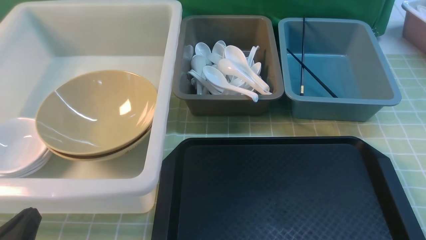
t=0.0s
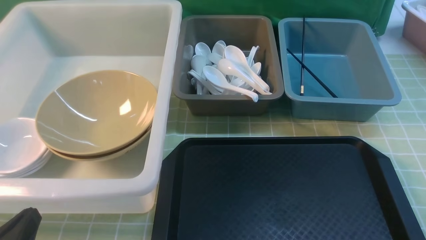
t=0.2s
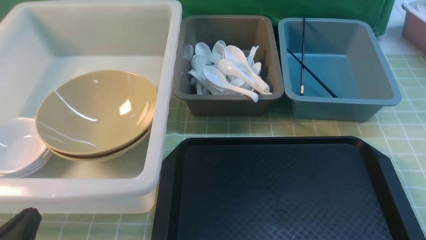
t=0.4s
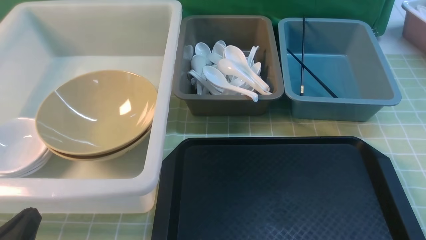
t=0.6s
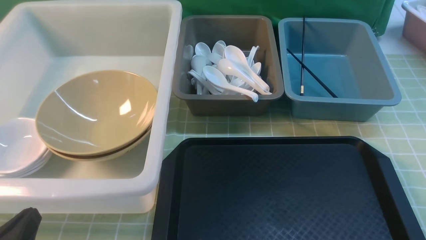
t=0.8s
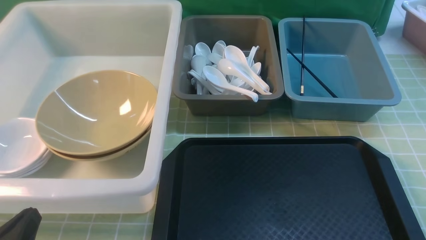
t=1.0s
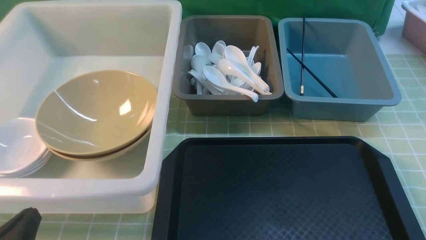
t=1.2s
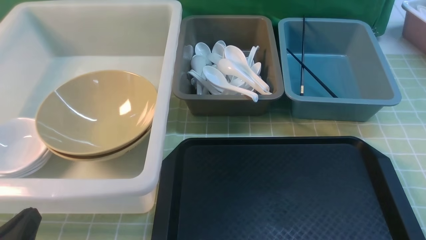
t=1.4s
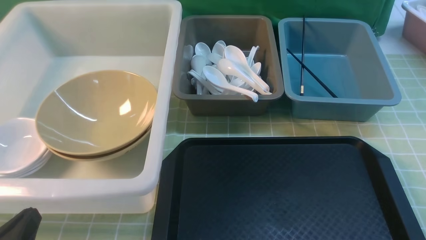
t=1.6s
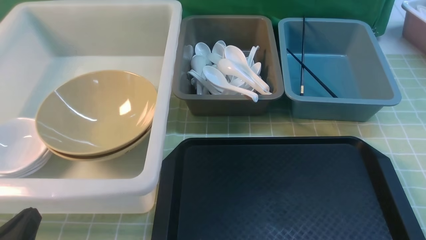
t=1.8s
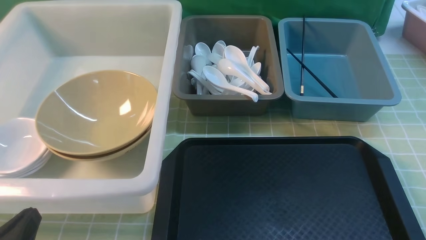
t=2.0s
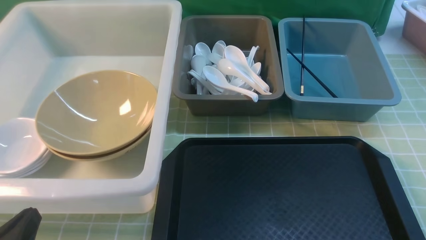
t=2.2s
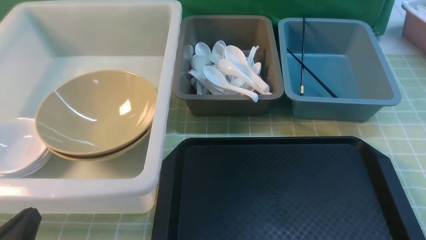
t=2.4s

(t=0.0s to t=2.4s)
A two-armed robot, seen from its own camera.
Task of the whole recording: on green table put chopsticks spoon bowls plates into blue grey white boxes.
t=0.0s - t=2.4s: Both grippers stay about where they are.

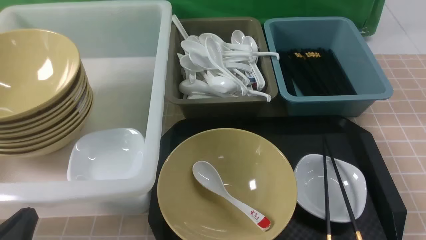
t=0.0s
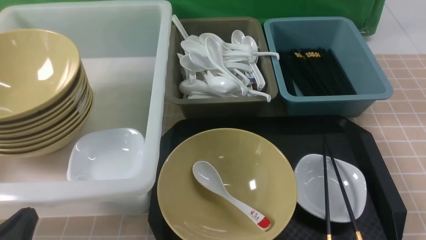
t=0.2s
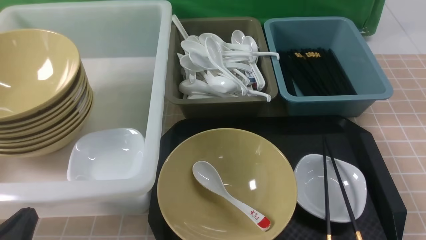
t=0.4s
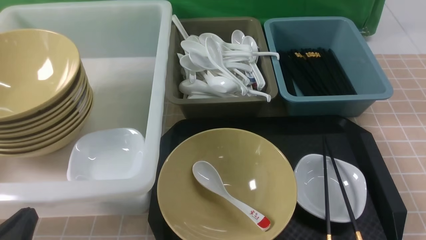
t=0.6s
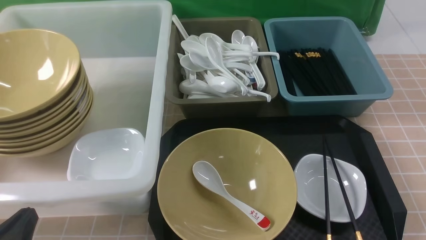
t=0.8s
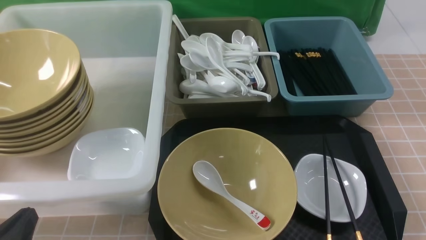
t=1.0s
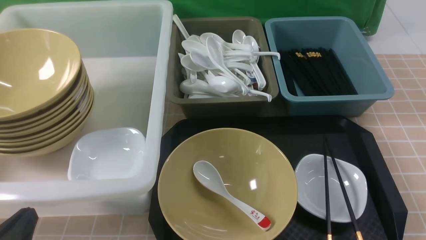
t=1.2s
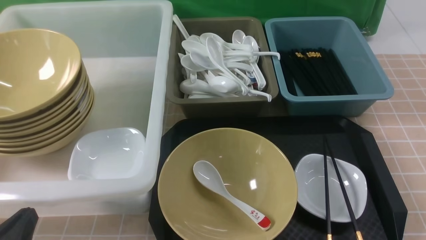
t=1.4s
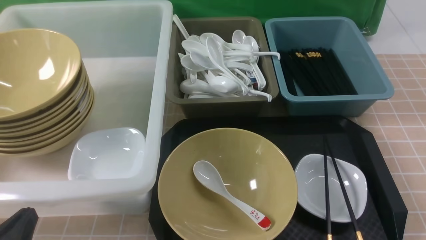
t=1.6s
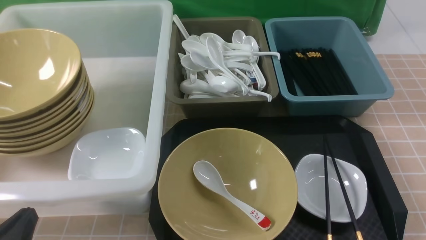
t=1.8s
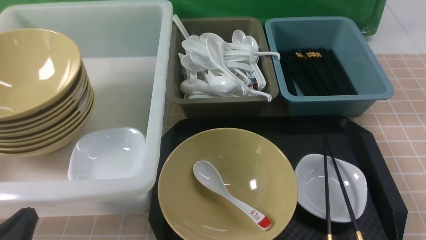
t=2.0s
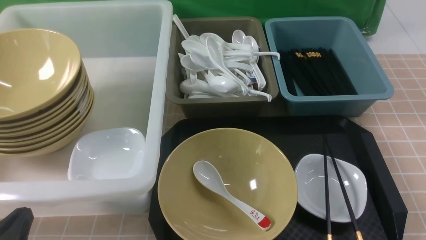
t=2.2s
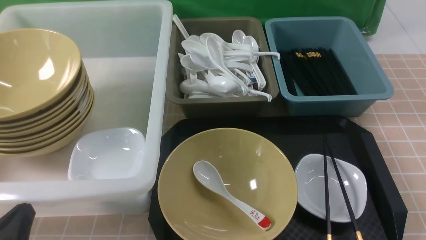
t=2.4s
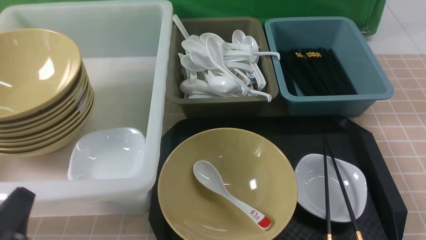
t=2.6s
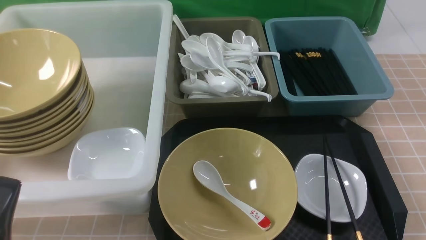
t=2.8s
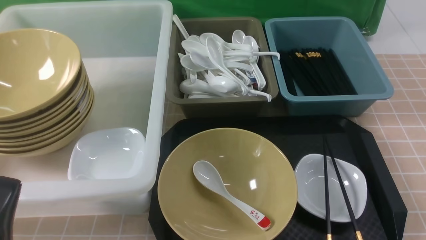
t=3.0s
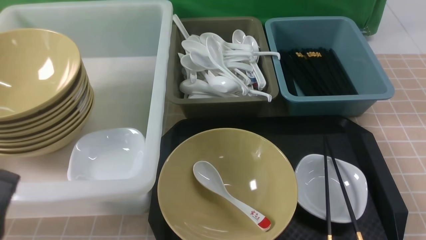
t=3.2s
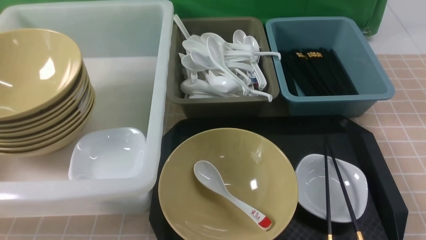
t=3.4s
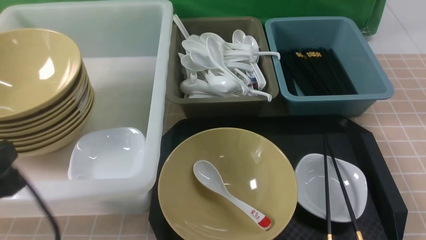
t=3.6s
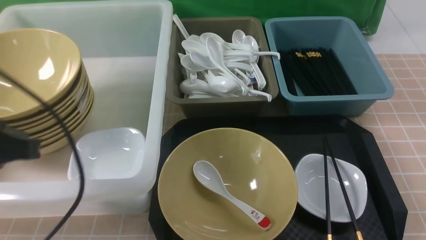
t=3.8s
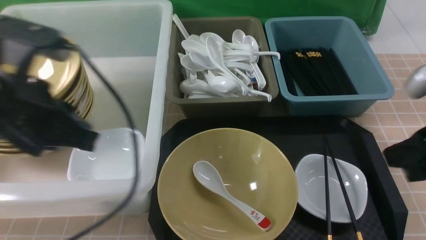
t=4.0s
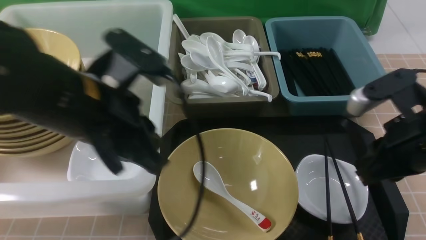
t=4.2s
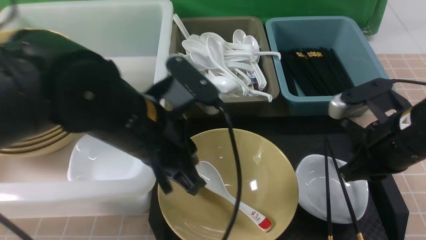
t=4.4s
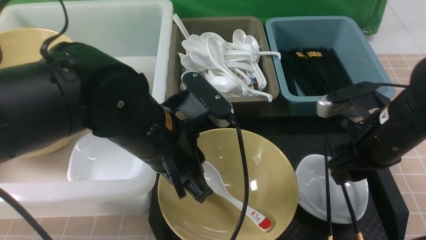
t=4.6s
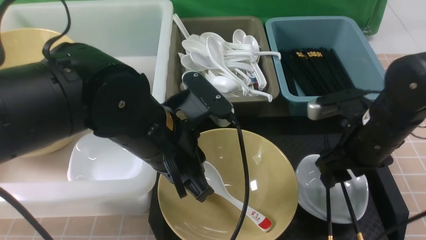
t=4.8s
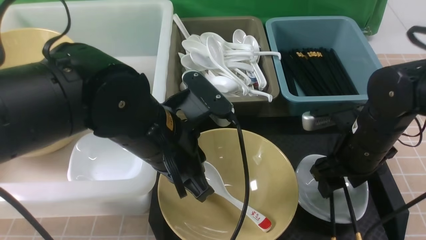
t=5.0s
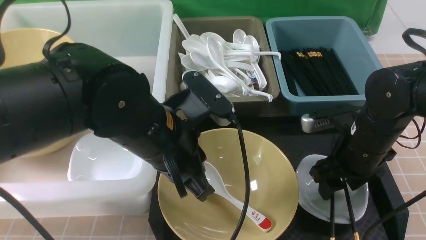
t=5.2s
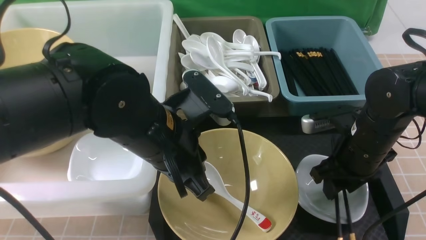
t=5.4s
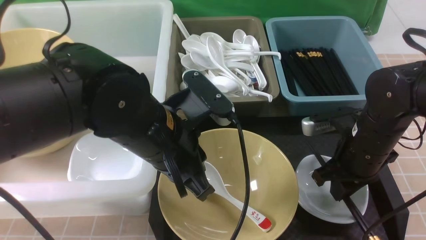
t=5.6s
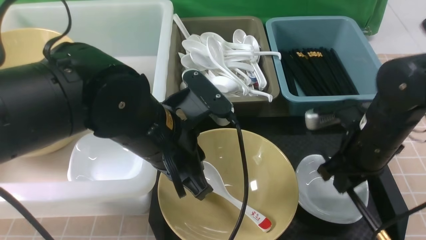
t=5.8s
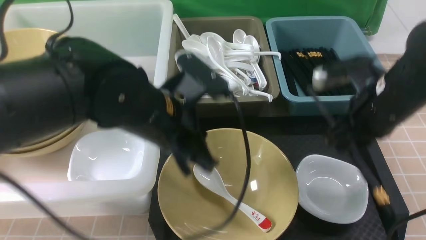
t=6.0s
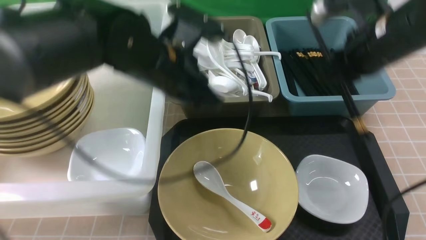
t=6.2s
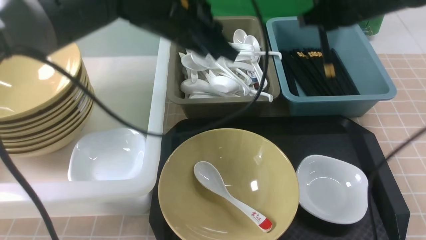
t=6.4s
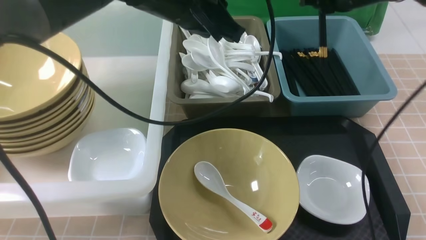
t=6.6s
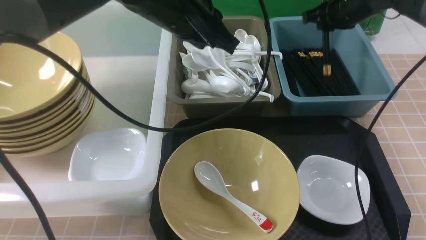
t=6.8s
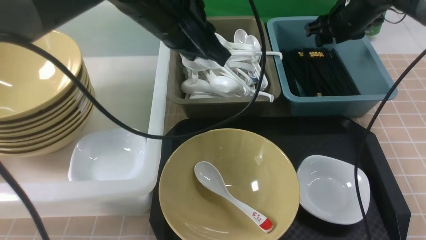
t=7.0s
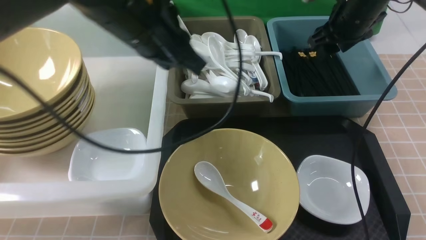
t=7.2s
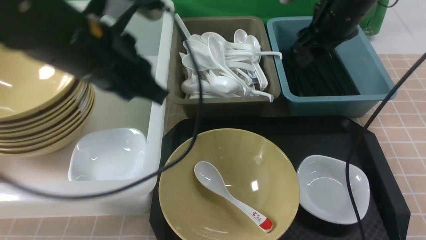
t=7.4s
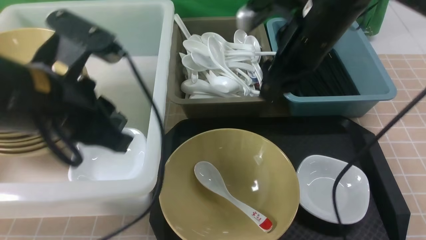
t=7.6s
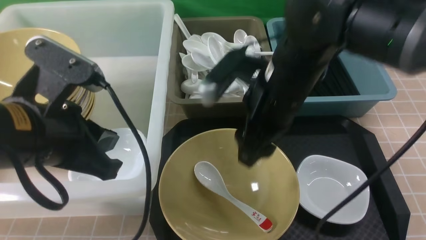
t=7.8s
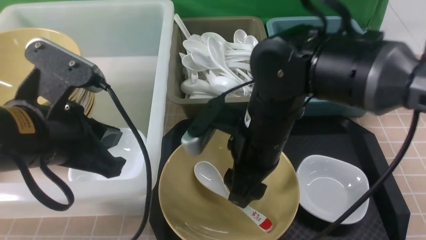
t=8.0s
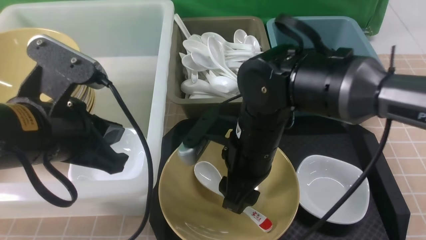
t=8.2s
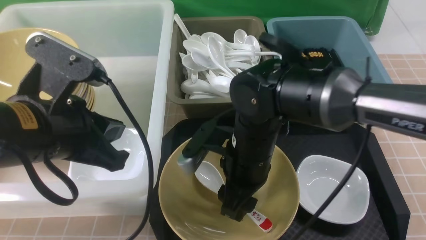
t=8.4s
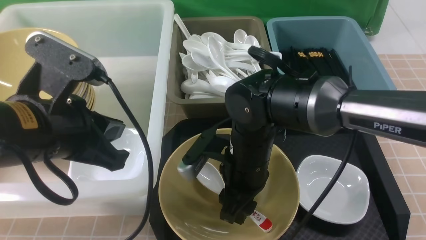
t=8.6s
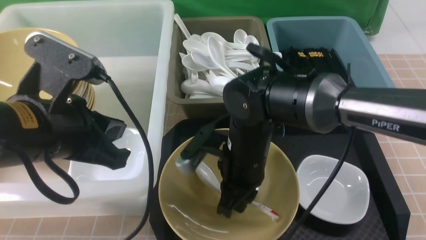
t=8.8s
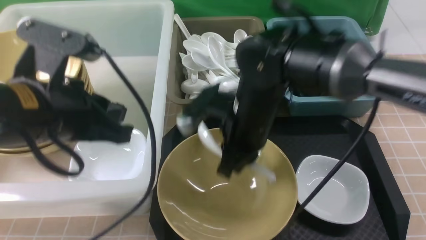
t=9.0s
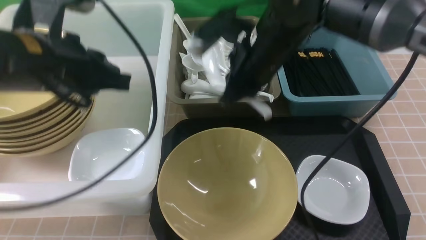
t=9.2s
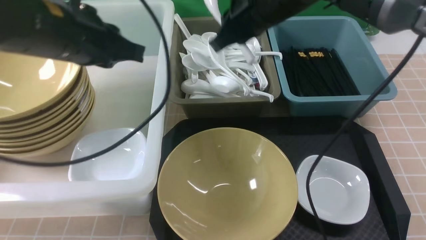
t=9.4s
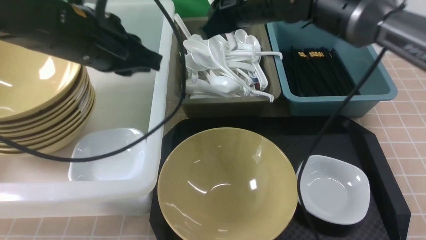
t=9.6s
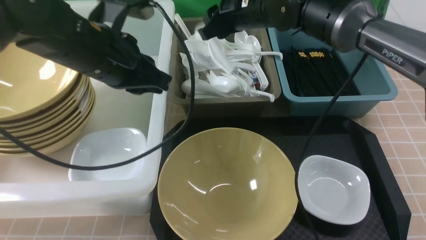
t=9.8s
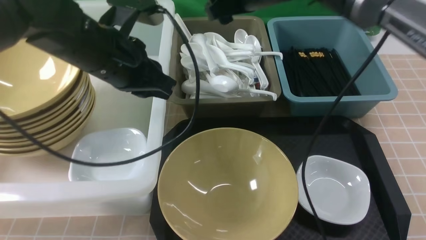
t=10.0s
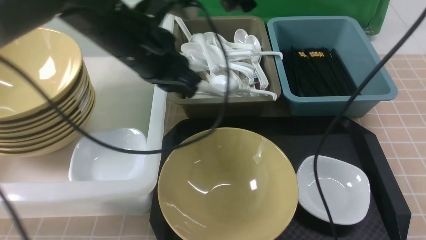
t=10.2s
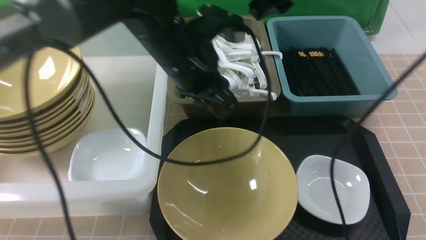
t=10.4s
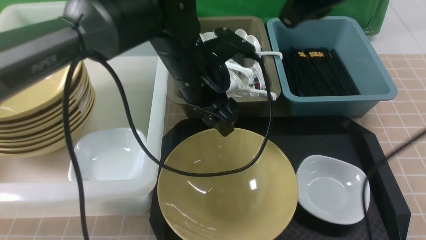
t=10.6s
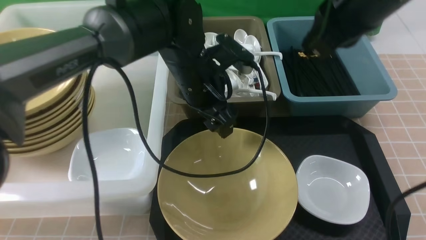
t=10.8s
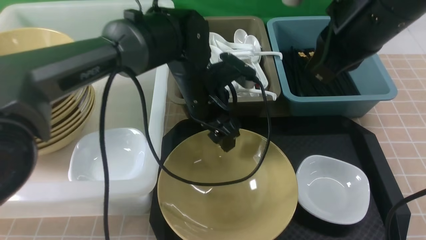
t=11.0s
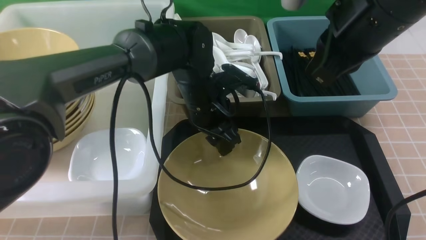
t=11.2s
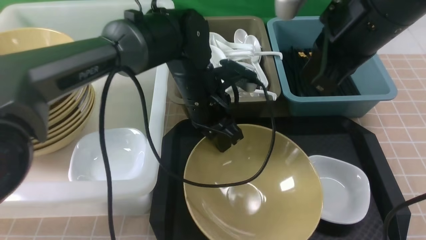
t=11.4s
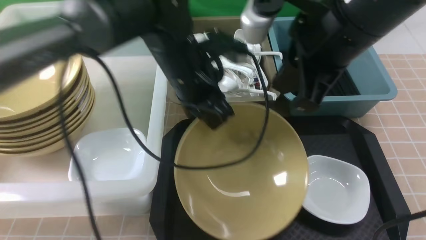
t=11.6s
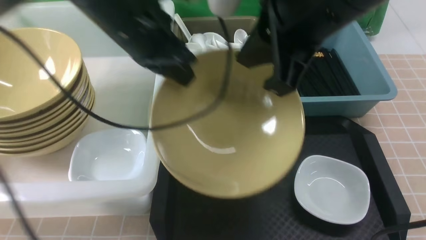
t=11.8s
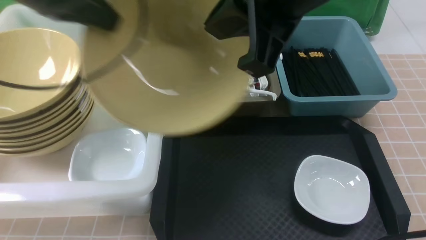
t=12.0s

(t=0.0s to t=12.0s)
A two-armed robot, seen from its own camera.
Task of the whole recording: on brown table put chopsticks spoon bowls plates into blue grey white boxes.
Step, t=0.0s - t=6.0s: use the right arm to grab the chopsticks.
Step, t=6.2s - t=7.0s: use the right arm to put the chopsticks into the small storage box on the right.
Step, t=7.2s - t=8.8s: use the right arm to grab the soup spoon in the middle.
Step, t=9.0s - t=10.0s: use the right arm to put the soup spoon into the small storage box in the middle.
Step, t=10.2s - t=11.4s: use the left arm to grab the yellow noodle bowl on the left.
t=3.0s - t=4.4s: The left gripper moves forward, to the right and upward, approximately 25 cm; the right gripper heads forward, upward and to the left, covering approximately 20 cm.
t=4.4s - t=6.0s: The right gripper moves forward, some 5 cm, moves approximately 10 cm downward and comes back, and opens, then closes once more. The left gripper shifts by some 5 cm.
t=6.0s - t=7.6s: The right gripper shifts approximately 15 cm forward, upward and to the left, and opens up; the left gripper goes some 10 cm to the left and upward, and moves roughly 10 cm forward and comes back.
t=7.6s - t=9.0s: The right gripper heads to the left, downward and backward, covering roughly 15 cm, and closes.
t=9.0s - t=10.4s: The left gripper moves forward and to the right, about 15 cm; the right gripper goes some 20 cm upward, forward and to the right, and opens.
t=10.4s - t=12.0s: The left gripper goes some 15 cm to the left and upward, and opens, then closes again; the right gripper moves backward, some 15 cm, and closes its fingers.

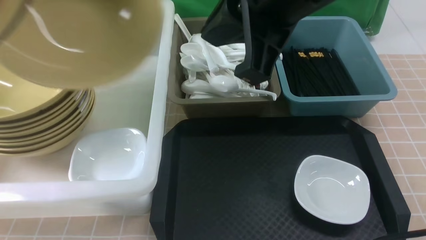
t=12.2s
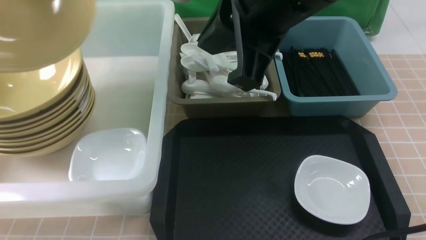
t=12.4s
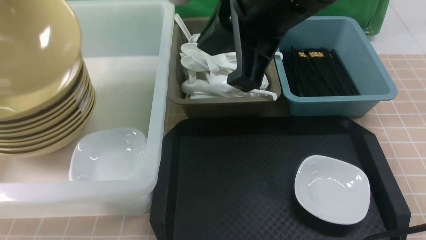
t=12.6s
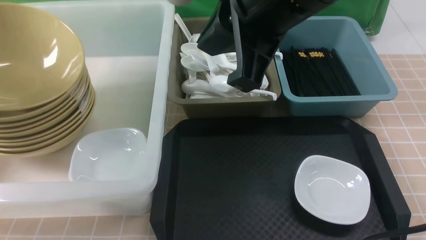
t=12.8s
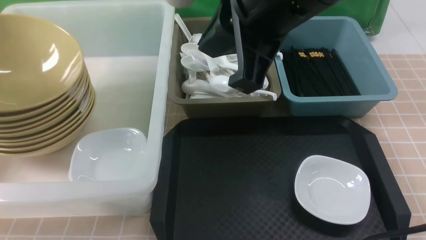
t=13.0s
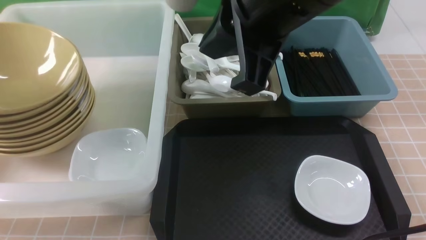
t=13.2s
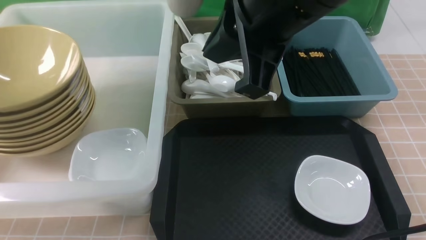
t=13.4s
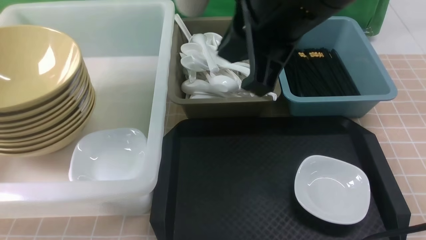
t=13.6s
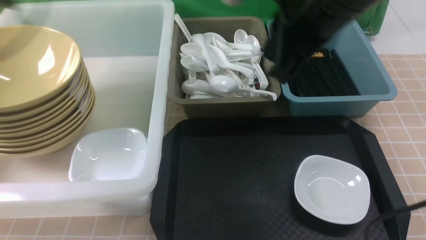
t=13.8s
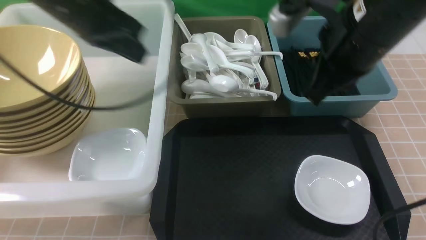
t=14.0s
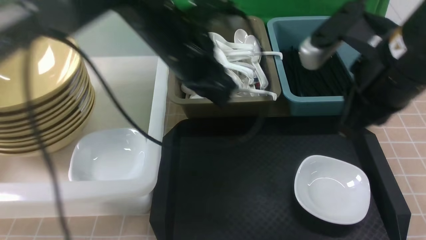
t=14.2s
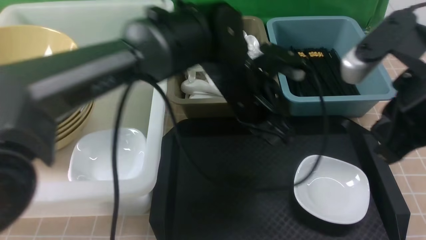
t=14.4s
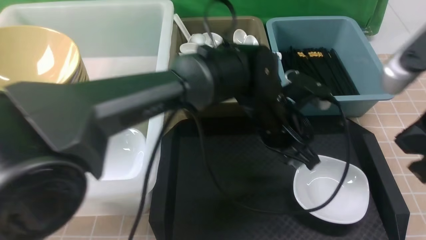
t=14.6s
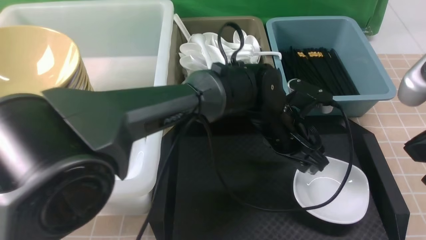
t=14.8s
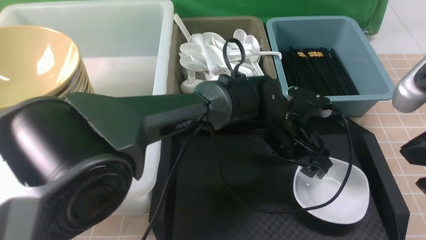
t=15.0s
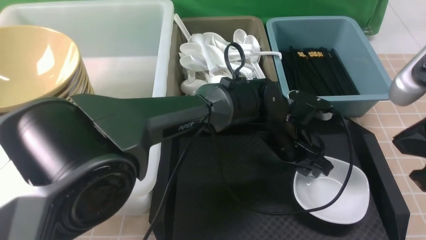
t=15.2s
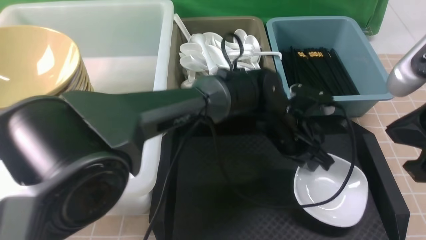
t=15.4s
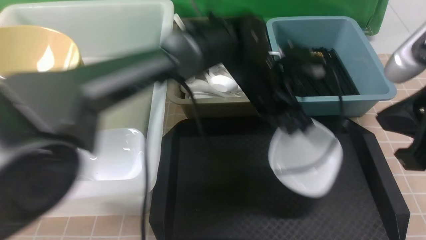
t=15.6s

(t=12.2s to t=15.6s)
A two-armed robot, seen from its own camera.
Task of the whole recording: on brown table put chopsticks spoon bowls plates into blue grey white boxes.
Step, t=12.2s - t=13.2s: use the left arm to put the noodle bowl into the large storage box on the left.
Step, t=13.4s - t=15.6s: use the left arm to grab the plate.
t=12.2s - t=13.8s: The right gripper moves approximately 5 cm, while the left gripper travels to the left and back again, some 15 cm each way, and opens its fingers.
t=13.8s - t=15.6s: The right gripper travels to the right, backward and downward by some 15 cm, while the left gripper moves to the right and downward, about 40 cm, and closes its fingers.
